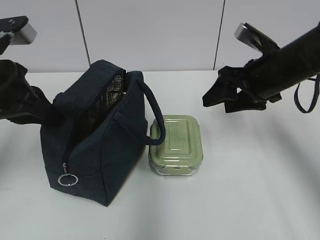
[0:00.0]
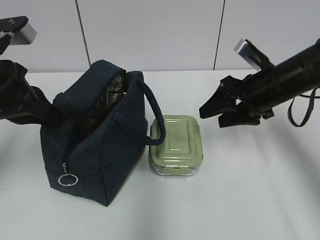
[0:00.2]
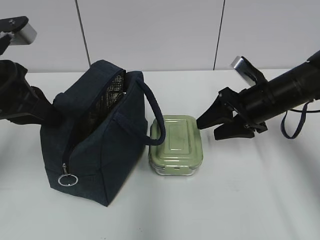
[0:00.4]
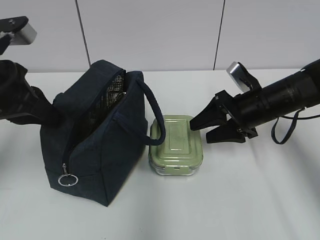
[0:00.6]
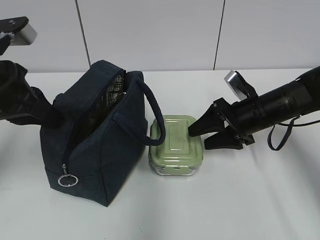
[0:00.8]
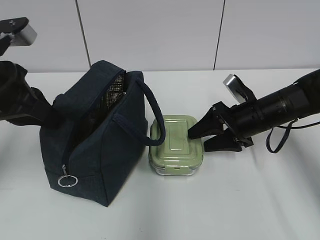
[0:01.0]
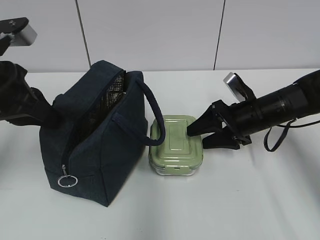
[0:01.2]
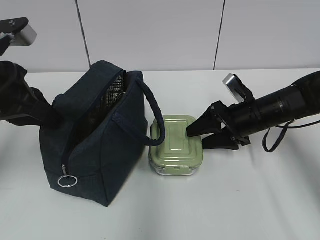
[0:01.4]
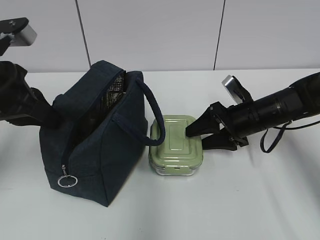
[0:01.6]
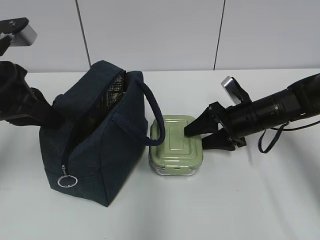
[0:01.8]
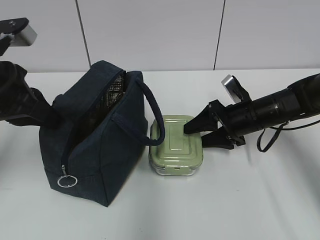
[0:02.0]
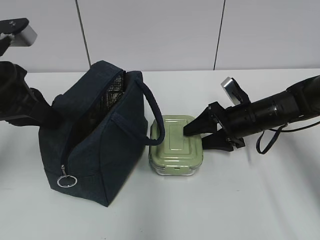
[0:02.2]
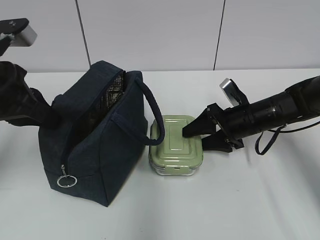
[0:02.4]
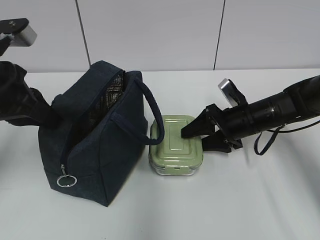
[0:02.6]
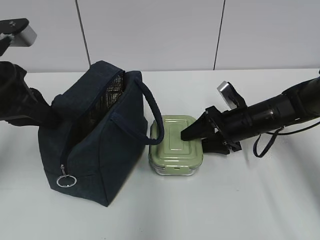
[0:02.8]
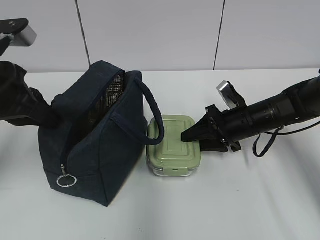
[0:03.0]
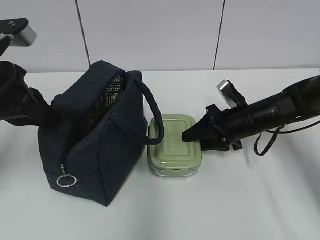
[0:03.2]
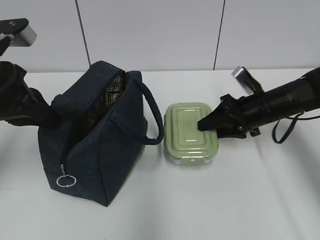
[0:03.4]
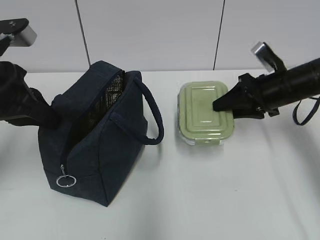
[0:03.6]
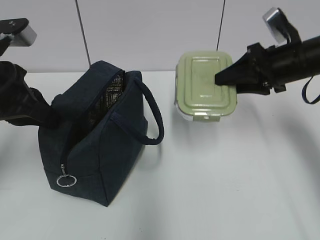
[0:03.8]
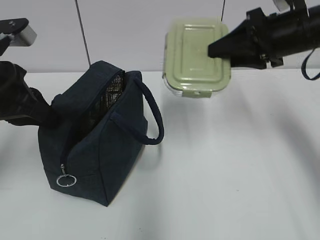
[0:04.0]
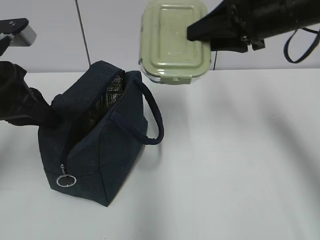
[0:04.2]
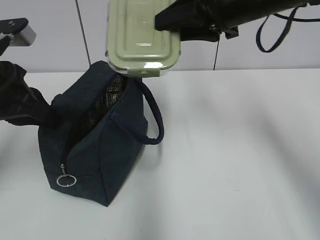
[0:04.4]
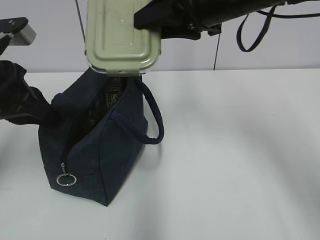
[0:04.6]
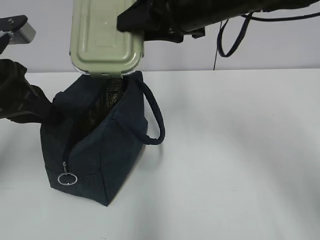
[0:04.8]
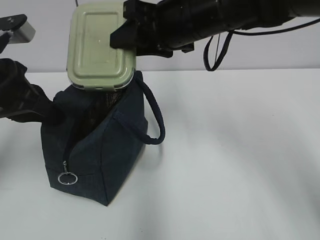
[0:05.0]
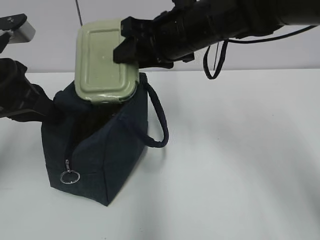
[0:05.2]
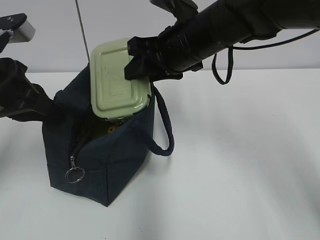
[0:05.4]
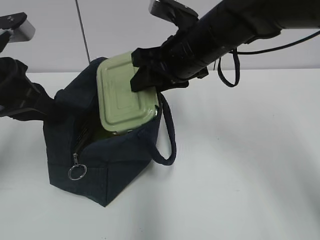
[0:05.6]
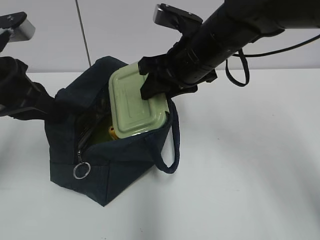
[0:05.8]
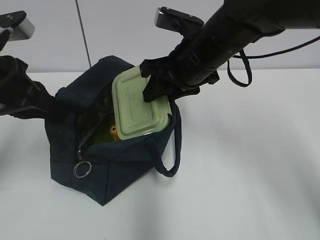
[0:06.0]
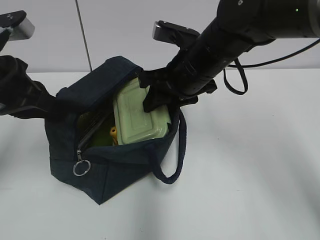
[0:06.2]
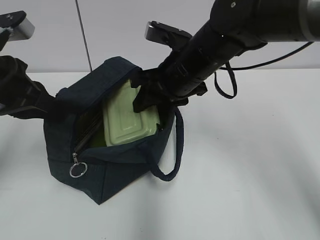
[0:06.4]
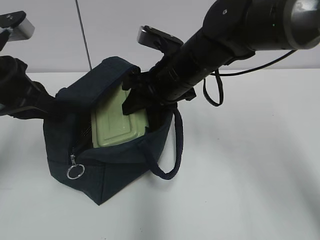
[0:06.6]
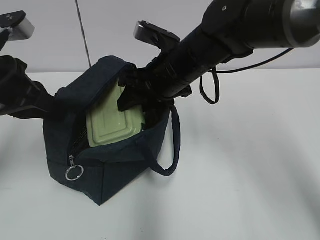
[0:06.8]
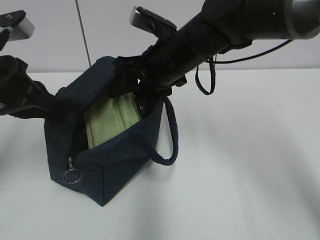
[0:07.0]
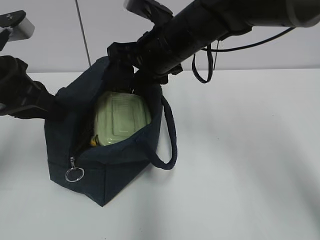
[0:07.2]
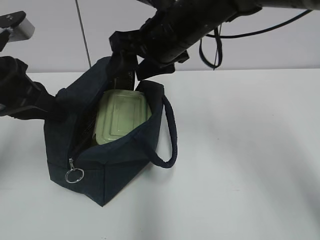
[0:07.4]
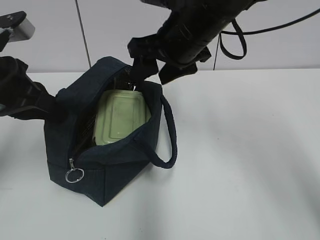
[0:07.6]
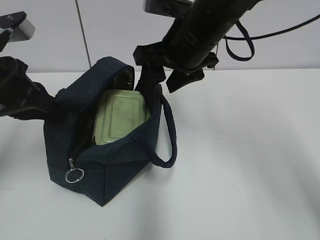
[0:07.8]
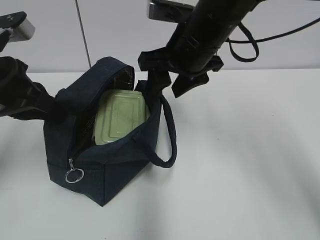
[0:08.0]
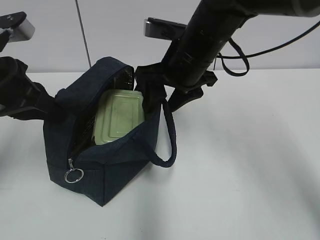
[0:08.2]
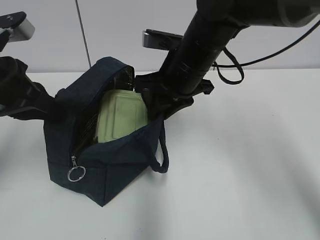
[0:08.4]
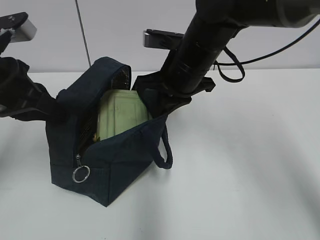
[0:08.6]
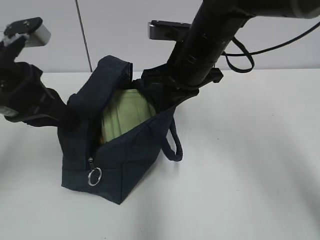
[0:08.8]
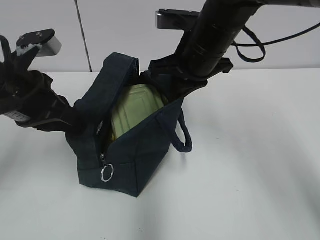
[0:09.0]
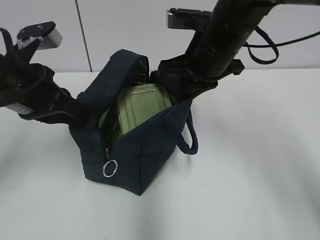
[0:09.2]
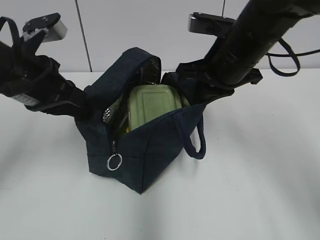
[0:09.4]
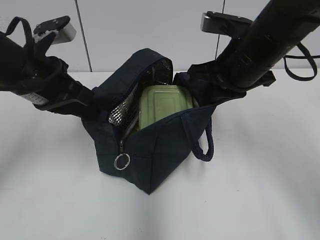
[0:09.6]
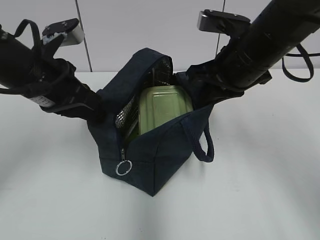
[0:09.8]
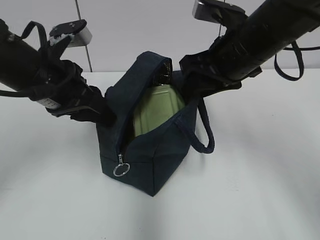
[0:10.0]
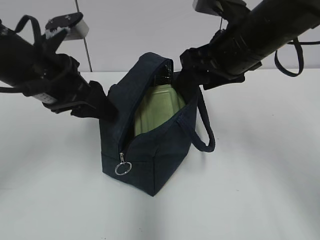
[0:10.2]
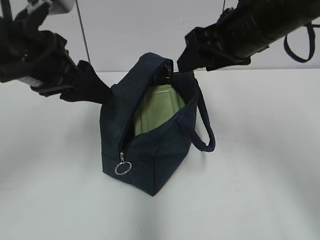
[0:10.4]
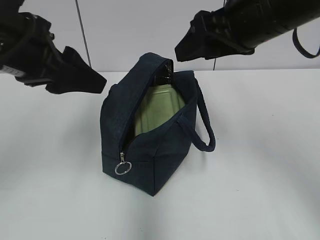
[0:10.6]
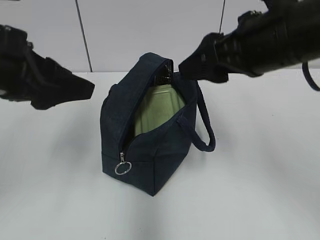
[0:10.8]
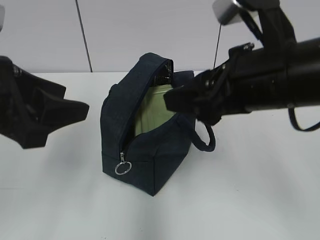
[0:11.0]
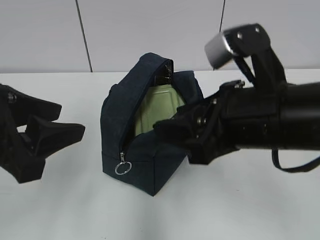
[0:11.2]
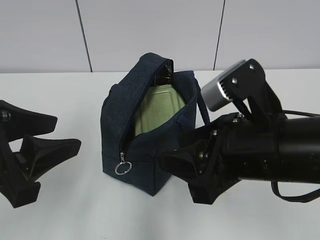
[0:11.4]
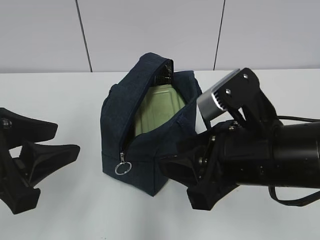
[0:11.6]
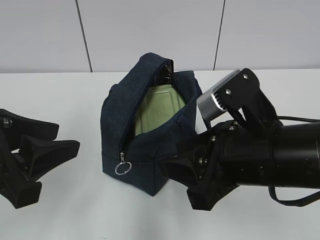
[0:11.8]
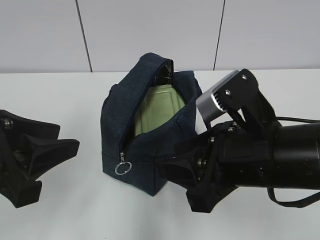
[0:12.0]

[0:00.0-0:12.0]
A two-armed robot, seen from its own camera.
Step, 0:00.0 to 0:03.0: Grab the lunch box with your right hand.
Step, 0:07.2 to 0:08.4: Grab the lunch bag with your right hand.
Step, 0:08.8 to 0:10.2: Move the lunch bag to the right.
0:00.0 to 0:01.6: The right gripper heads downward, covering some 10 cm.
0:01.6 to 0:03.0: The right gripper closes up.
0:03.0 to 0:04.4: The right gripper is displaced upward by roughly 25 cm.
0:04.4 to 0:06.0: The right gripper travels downward and to the left by roughly 10 cm.
0:06.0 to 0:07.6: The right gripper opens.
0:07.6 to 0:09.0: The right gripper closes up.
0:09.0 to 0:10.4: The left gripper goes about 5 cm upward, and opens up. The right gripper moves about 10 cm, and opens.
0:10.4 to 0:12.0: The left gripper moves backward, roughly 10 cm, while the right gripper goes roughly 15 cm backward and downward.

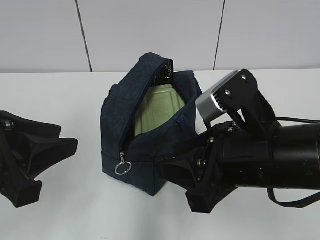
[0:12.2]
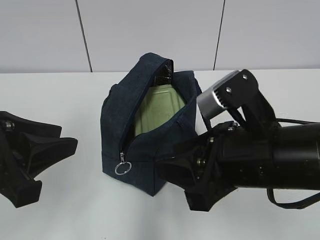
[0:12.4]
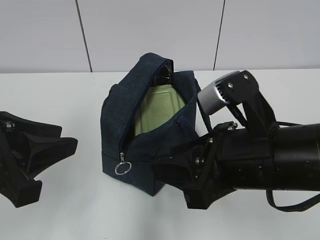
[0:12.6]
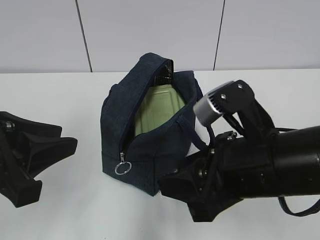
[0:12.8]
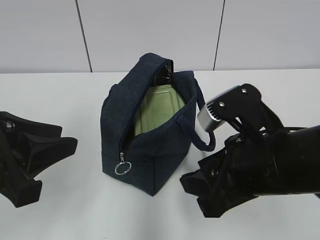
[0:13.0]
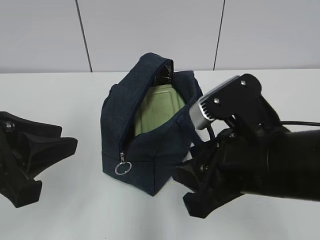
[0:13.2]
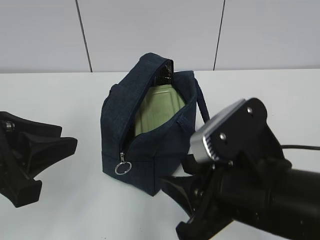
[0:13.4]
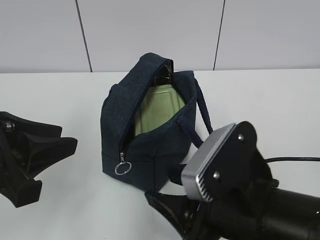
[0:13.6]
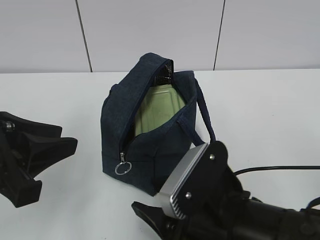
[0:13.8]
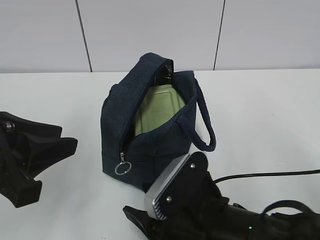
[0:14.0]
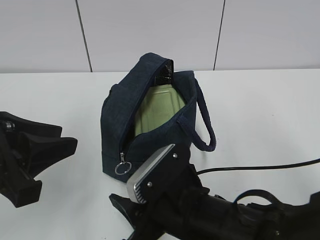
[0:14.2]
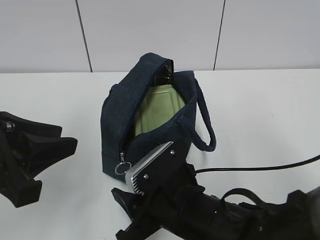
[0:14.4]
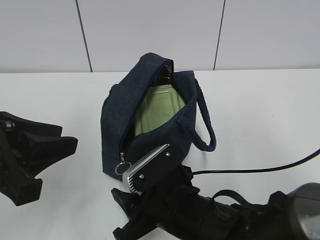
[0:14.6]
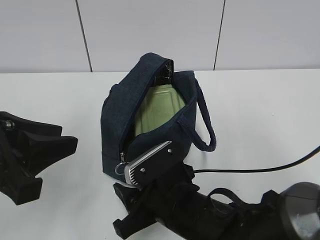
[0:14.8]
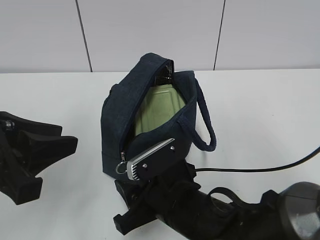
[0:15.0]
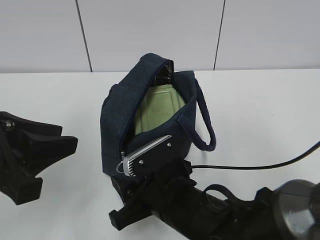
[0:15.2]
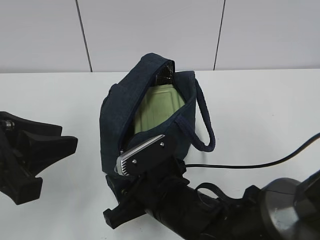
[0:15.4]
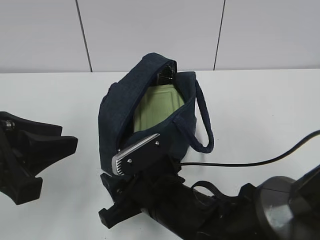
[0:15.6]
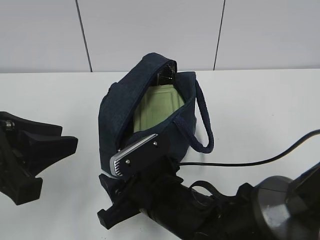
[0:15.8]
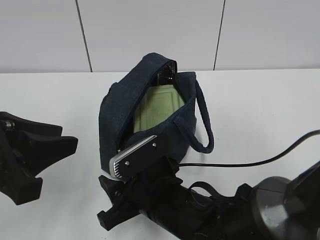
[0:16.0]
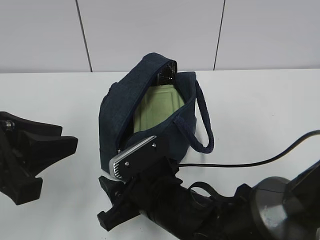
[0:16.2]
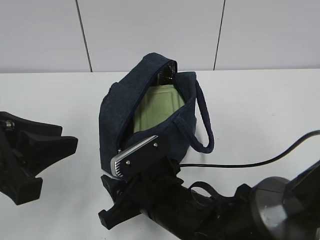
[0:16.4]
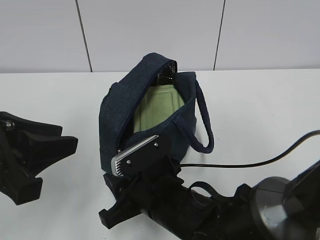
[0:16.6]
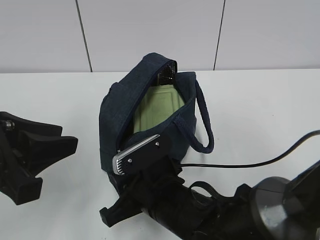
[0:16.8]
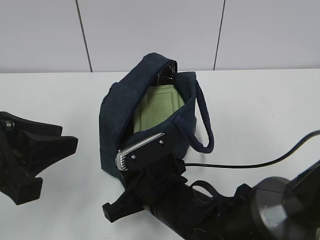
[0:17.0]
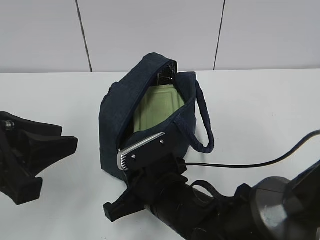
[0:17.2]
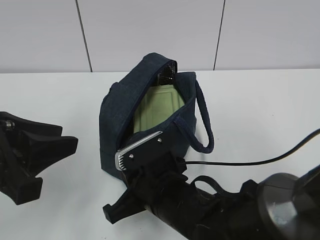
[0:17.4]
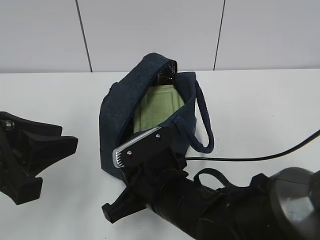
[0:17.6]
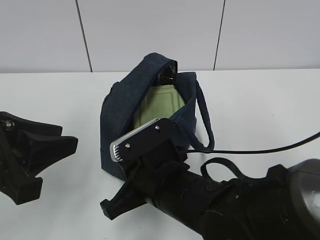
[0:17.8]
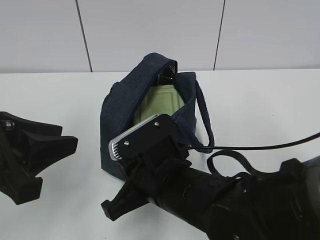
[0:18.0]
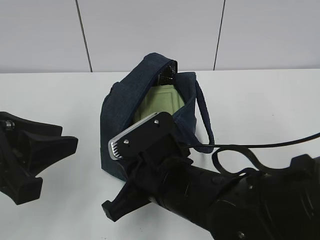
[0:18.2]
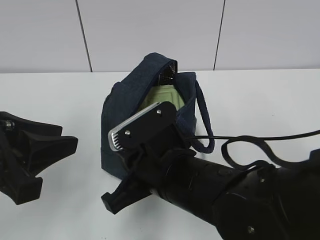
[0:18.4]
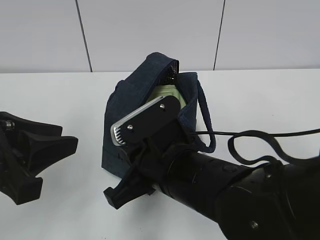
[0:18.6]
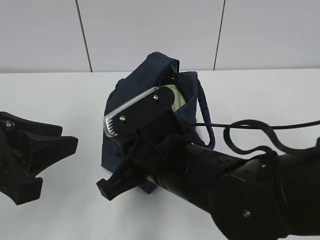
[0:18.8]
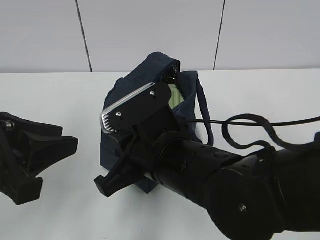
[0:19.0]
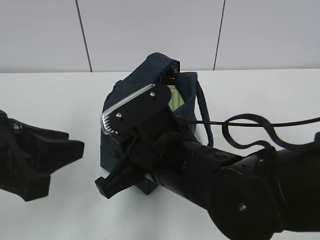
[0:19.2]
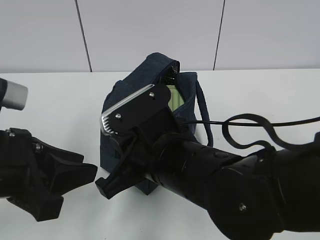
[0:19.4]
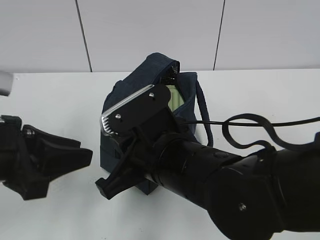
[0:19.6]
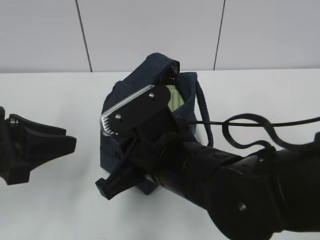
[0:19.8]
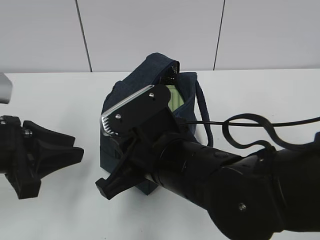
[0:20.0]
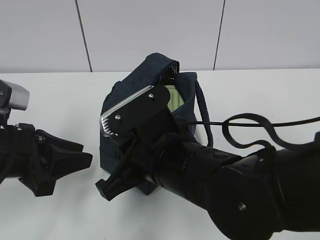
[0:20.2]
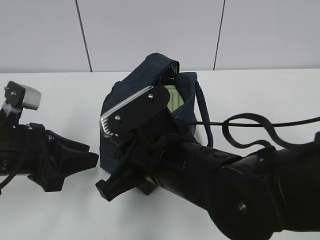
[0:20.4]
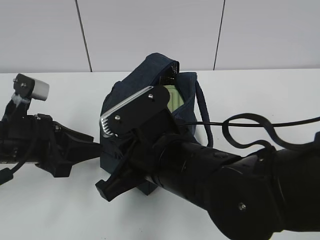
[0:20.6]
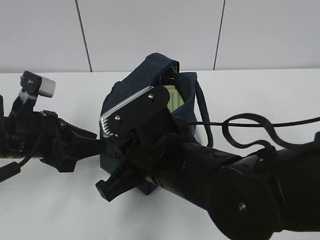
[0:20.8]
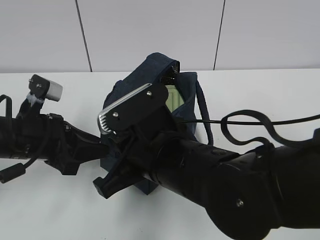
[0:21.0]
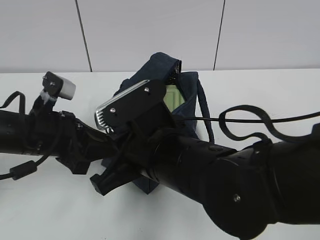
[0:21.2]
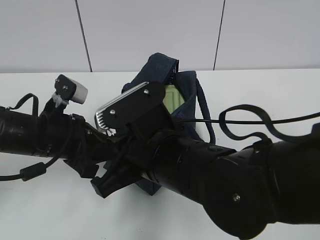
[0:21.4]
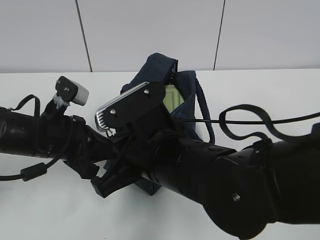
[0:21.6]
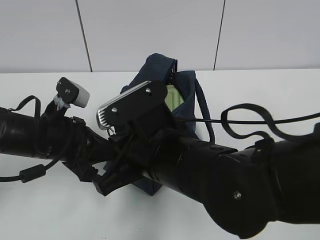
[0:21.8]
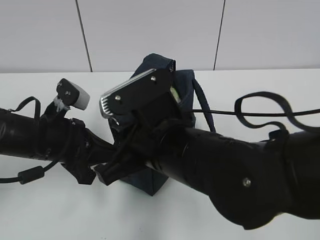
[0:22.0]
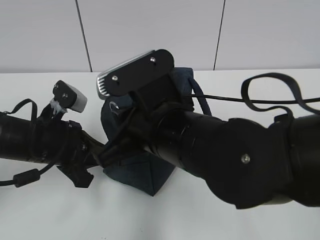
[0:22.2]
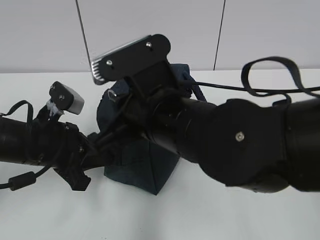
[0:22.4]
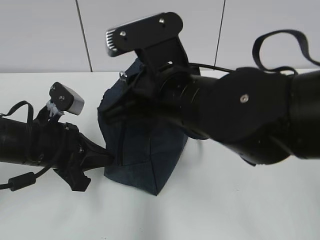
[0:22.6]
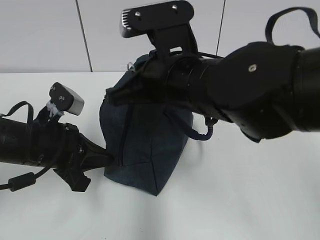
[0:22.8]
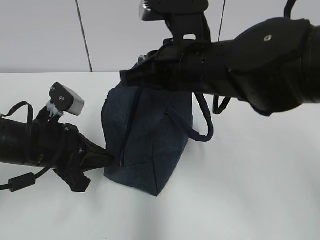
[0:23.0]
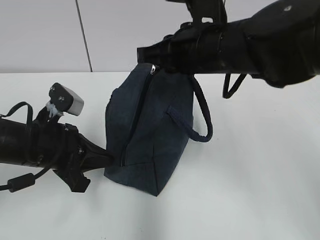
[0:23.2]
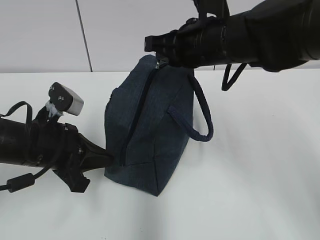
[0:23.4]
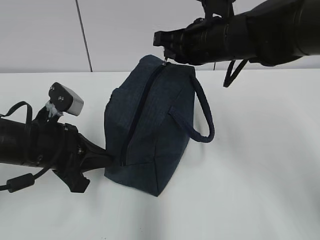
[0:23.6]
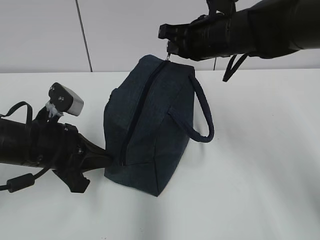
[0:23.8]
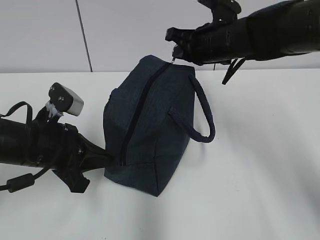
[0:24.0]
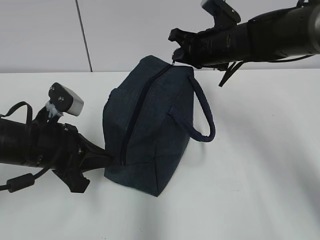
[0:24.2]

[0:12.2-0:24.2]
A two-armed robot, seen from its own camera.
0:12.2 to 0:13.8: The right gripper goes approximately 5 cm downward.
0:13.8 to 0:15.2: The right gripper shifts about 10 cm forward and downward.
0:15.2 to 0:16.6: The grippers move only a little.
0:16.6 to 0:18.2: The right gripper moves upward, roughly 5 cm, and closes.
0:18.2 to 0:19.8: The left gripper moves about 5 cm.
0:19.8 to 0:21.2: The left gripper heads forward and downward, covering about 10 cm.
0:21.2 to 0:22.6: The left gripper closes up; the right gripper shifts approximately 5 cm upward.
0:22.6 to 0:24.2: The right gripper is displaced forward and to the right by approximately 20 cm.
